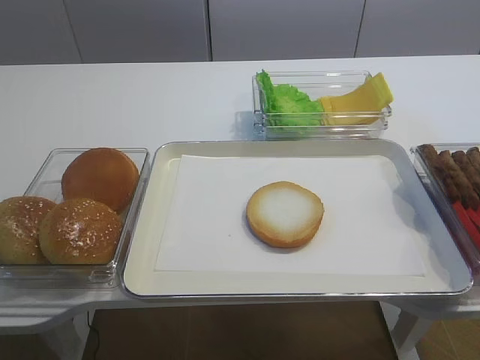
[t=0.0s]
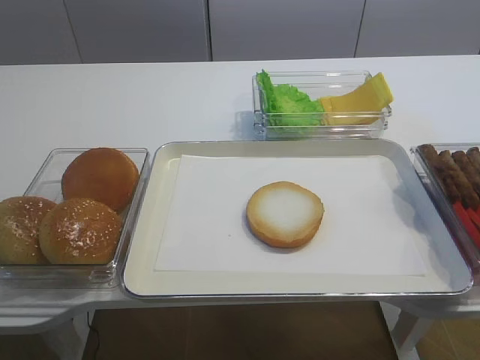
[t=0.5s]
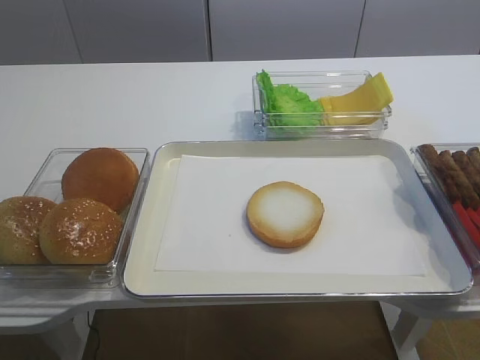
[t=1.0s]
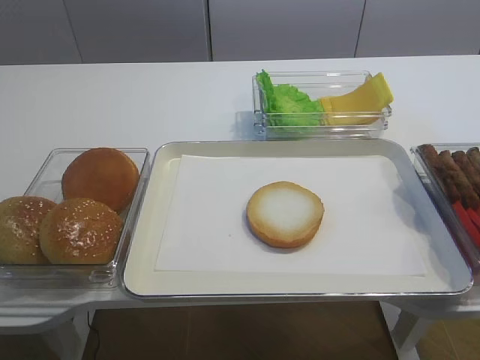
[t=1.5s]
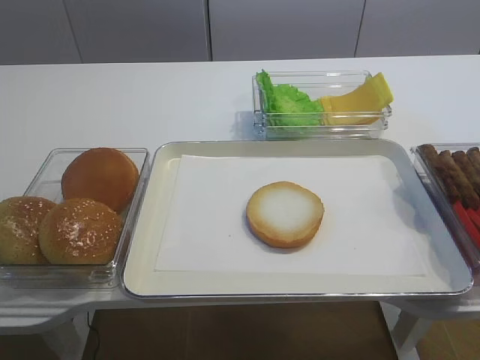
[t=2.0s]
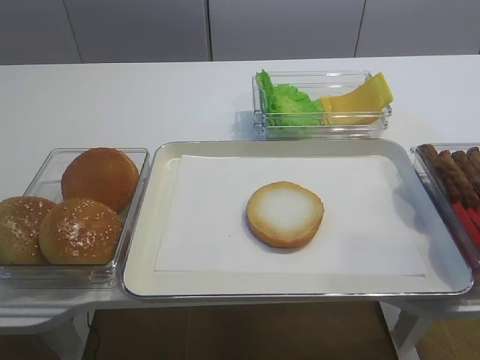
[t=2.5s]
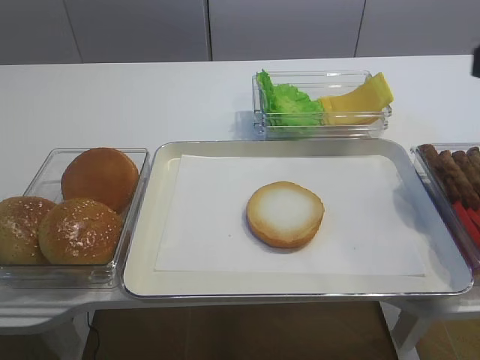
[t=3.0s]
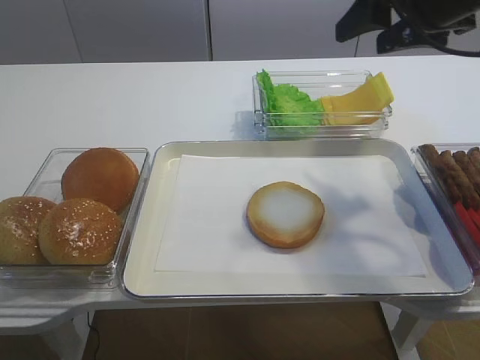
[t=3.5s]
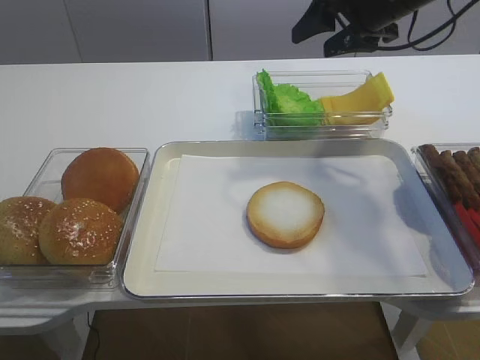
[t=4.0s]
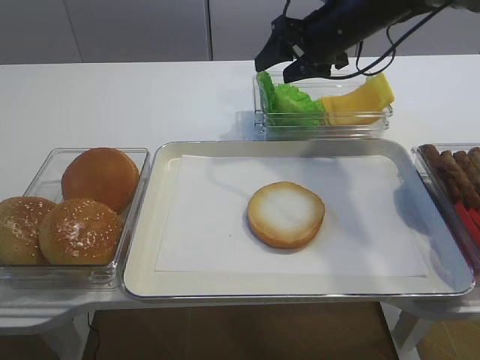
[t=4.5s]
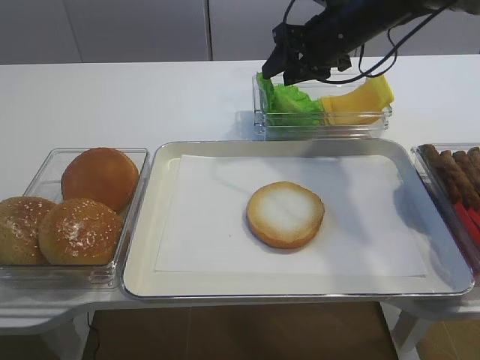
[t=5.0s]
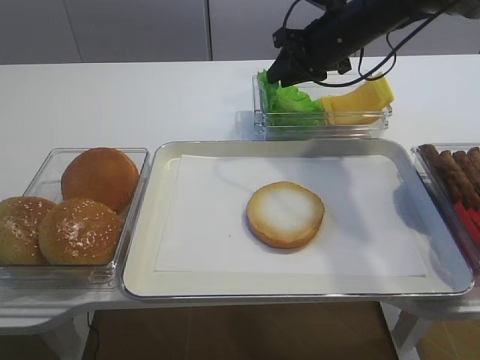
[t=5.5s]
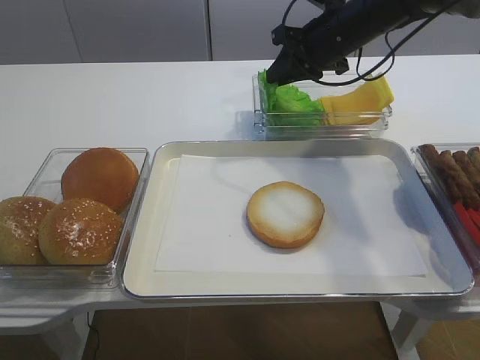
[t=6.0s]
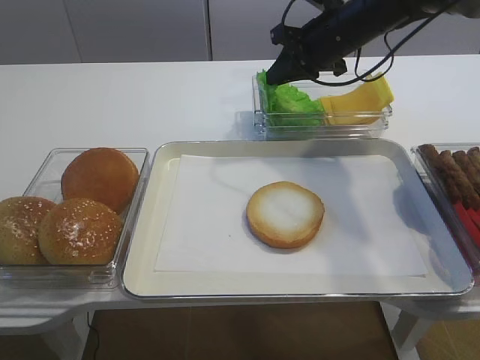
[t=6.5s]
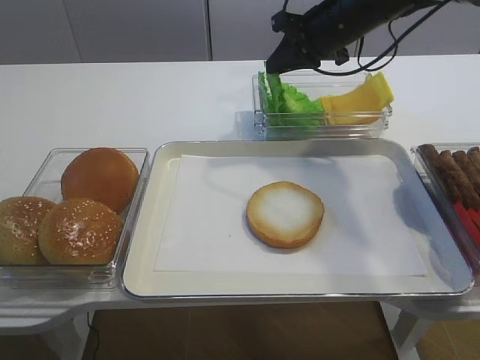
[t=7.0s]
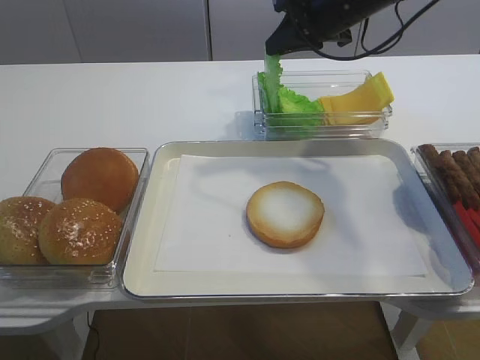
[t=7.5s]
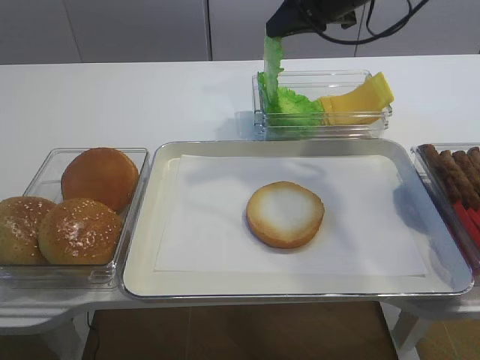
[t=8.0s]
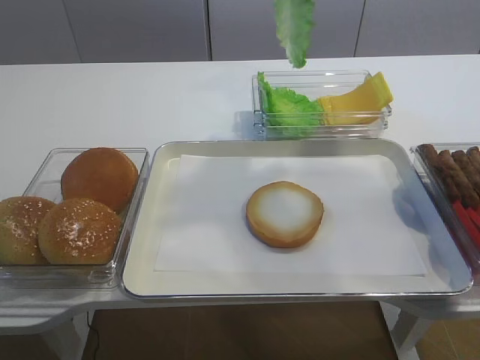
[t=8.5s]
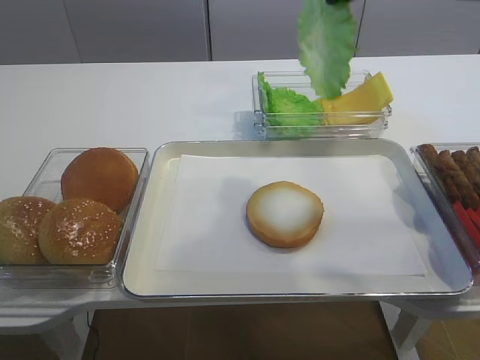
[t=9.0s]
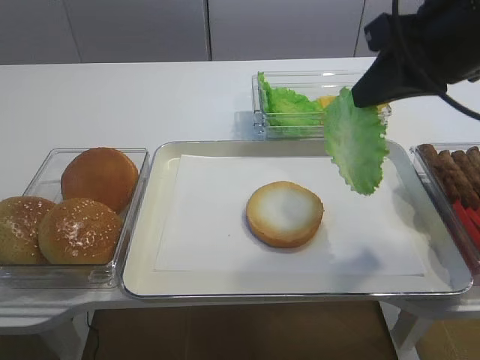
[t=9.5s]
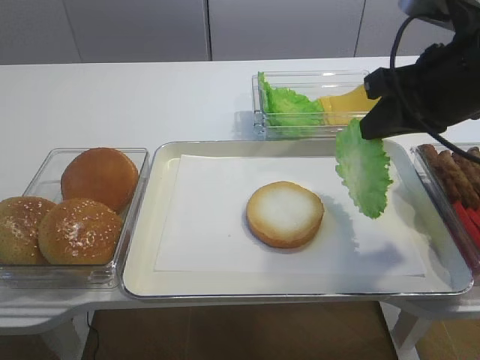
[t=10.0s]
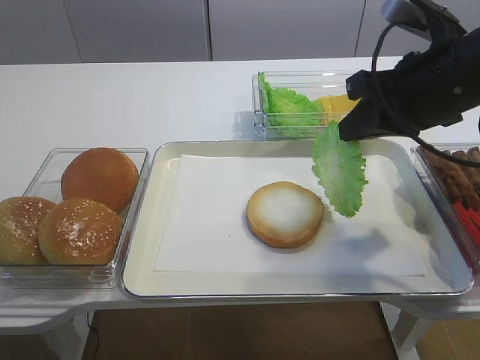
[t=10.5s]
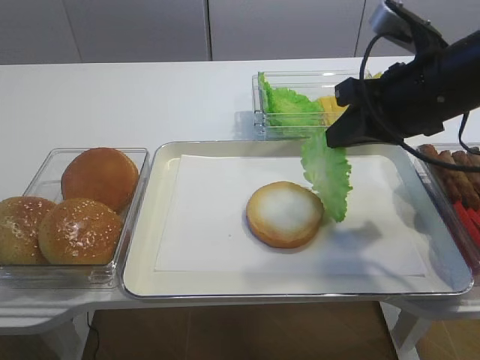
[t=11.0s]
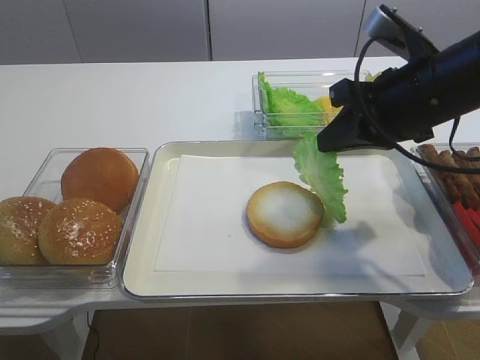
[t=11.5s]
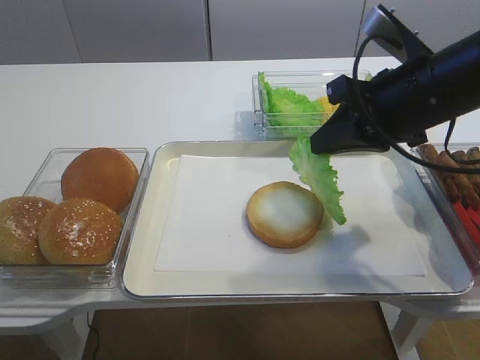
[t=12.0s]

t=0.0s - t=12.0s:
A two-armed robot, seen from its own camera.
Step, t=0.0s - t=8.0s: Pick up the lettuce leaf with the right gripper.
t=2.0s - t=4.0s: The right gripper shifts approximately 40 cm forward.
t=4.0s - t=6.0s: The right gripper is displaced downward by some 5 cm, and closes.
t=6.0s - t=8.0s: The right gripper travels upward by about 5 cm.
t=8.0s - t=10.0s: The right gripper shifts about 20 cm backward.
t=10.0s - t=12.0s: The grippers stay close to where they were, moving slightly.

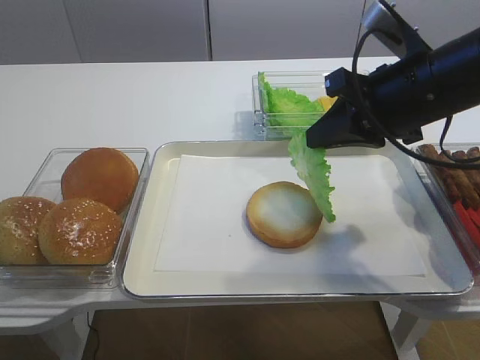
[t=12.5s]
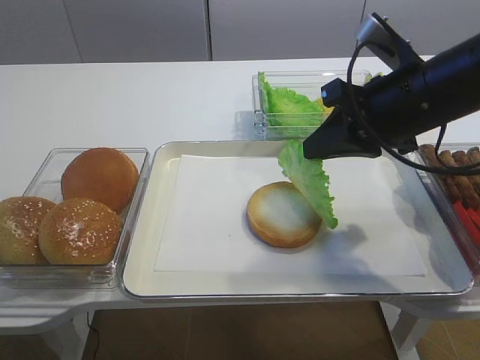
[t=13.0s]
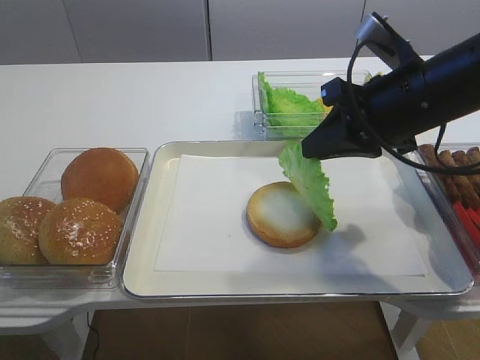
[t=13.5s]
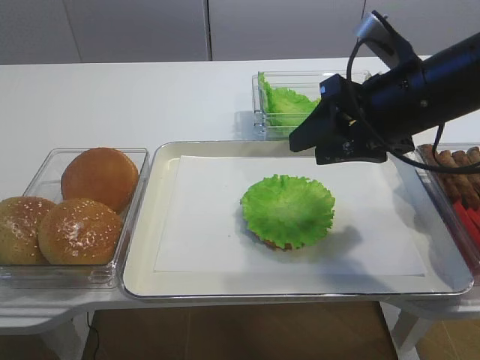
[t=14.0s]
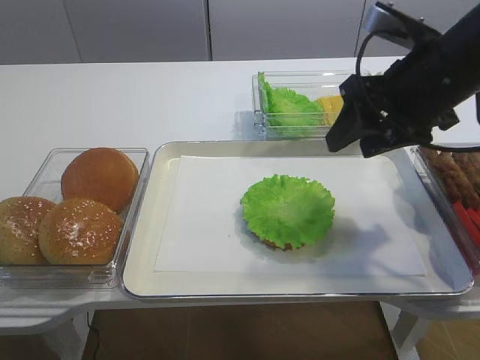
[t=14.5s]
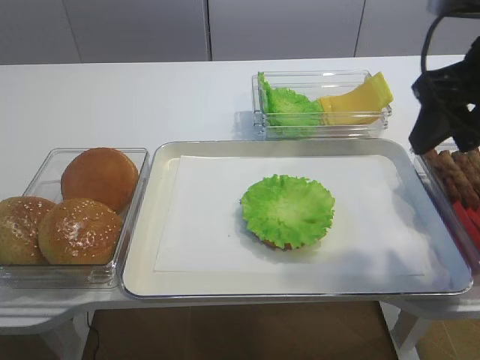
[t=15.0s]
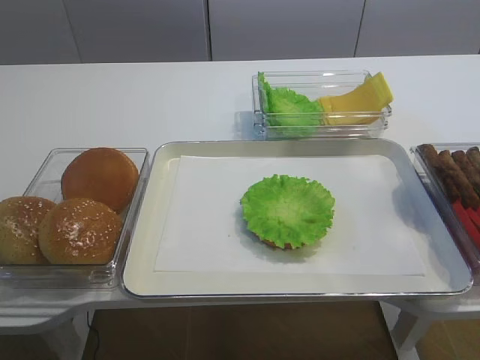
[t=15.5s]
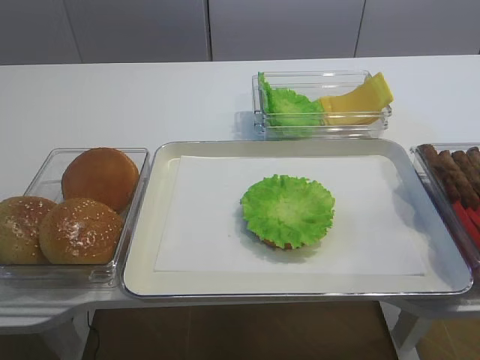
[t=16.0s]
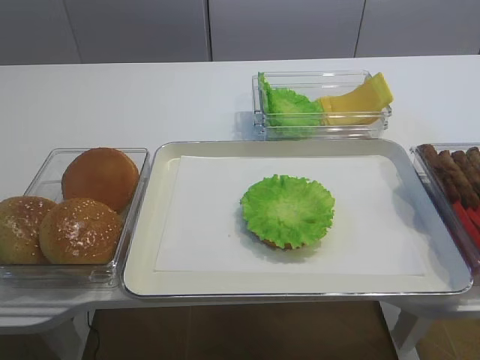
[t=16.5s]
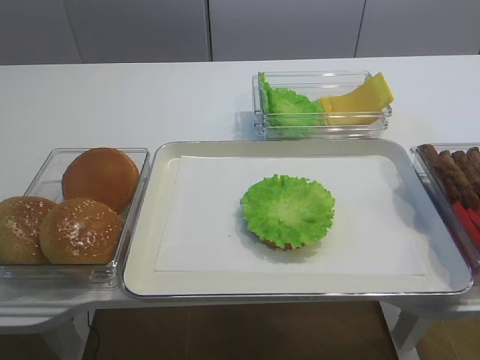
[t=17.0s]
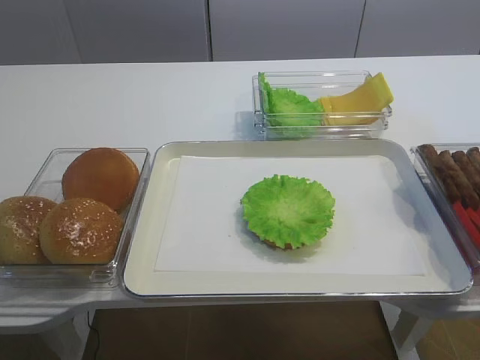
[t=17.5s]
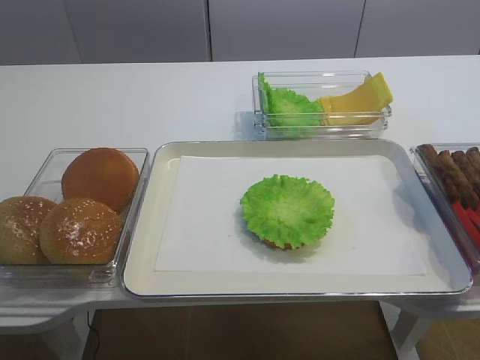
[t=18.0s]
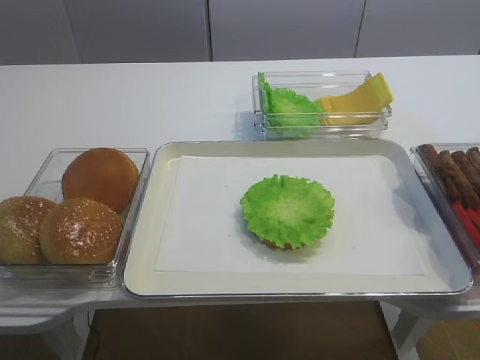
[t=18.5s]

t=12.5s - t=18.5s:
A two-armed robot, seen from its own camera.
t=12.5s - t=14.5s: The right gripper opens its fingers.
t=14.5s - t=16.5s: The right gripper travels backward by approximately 30 cm.

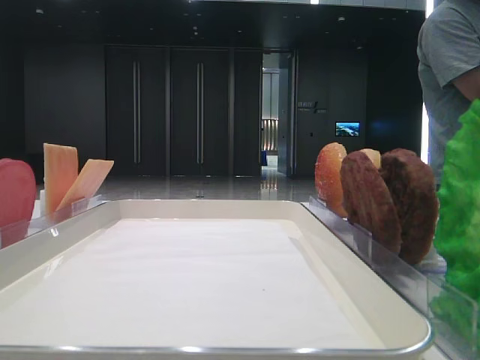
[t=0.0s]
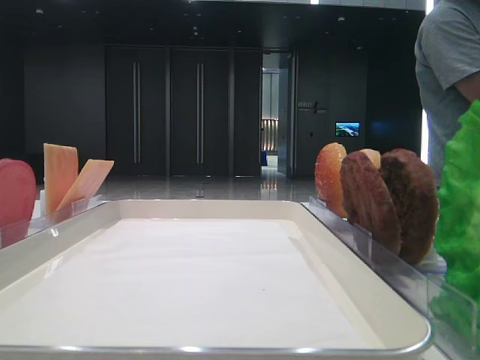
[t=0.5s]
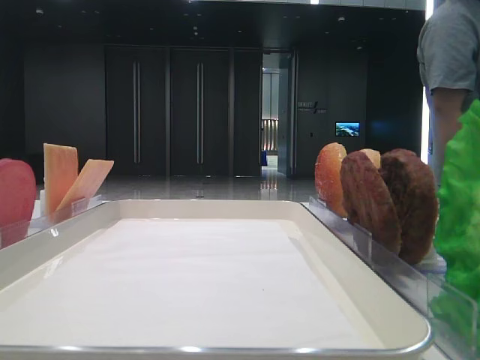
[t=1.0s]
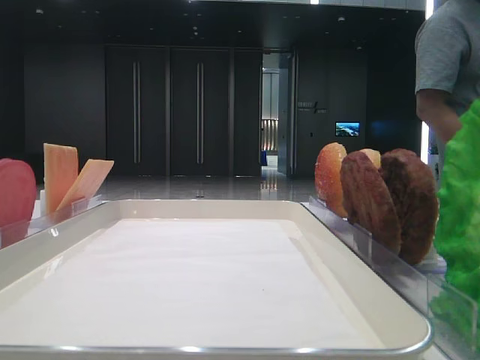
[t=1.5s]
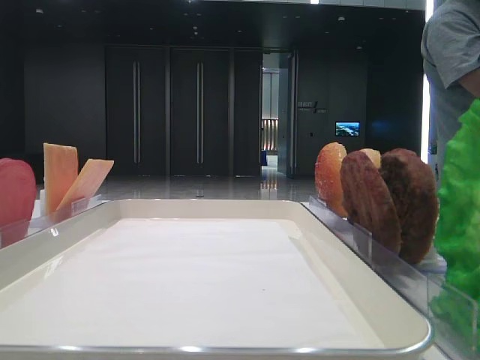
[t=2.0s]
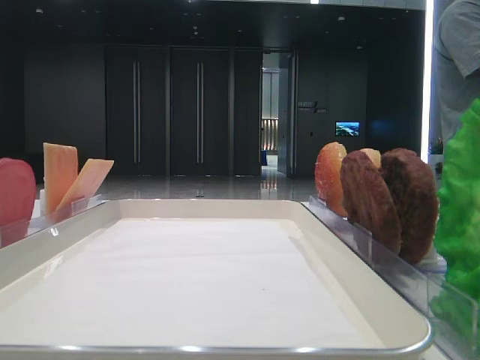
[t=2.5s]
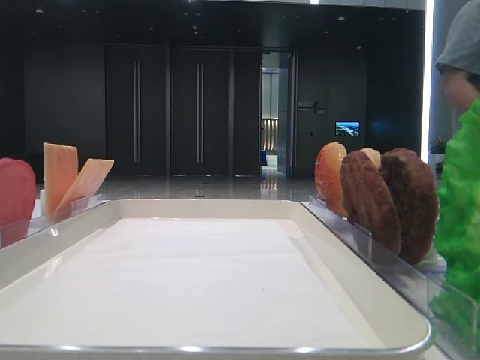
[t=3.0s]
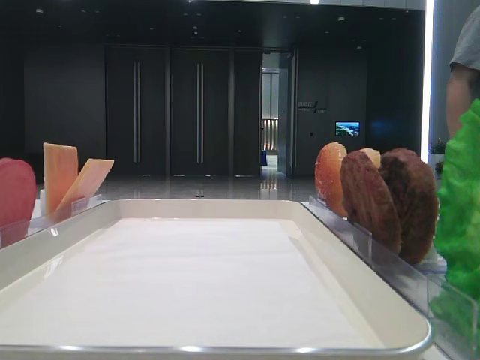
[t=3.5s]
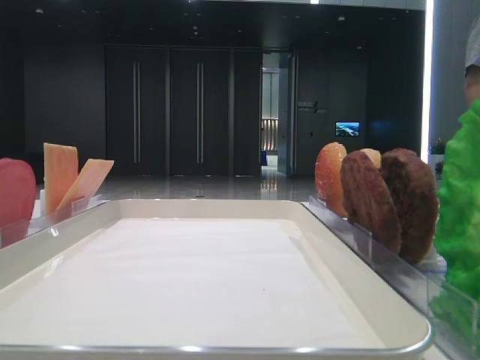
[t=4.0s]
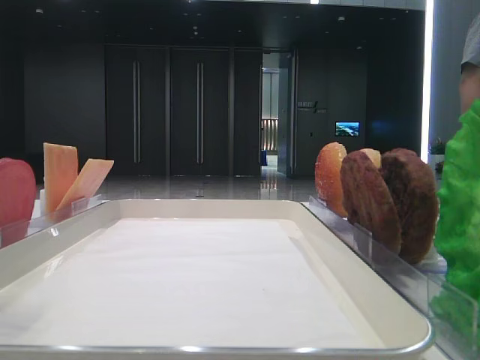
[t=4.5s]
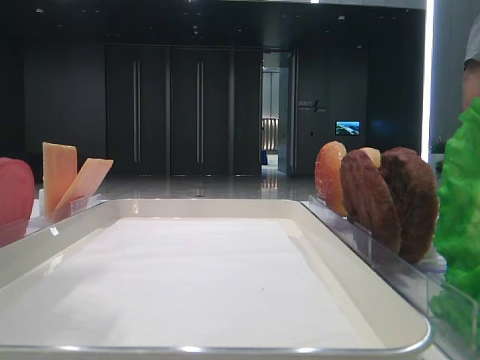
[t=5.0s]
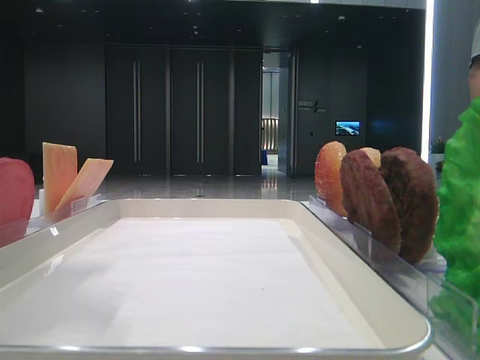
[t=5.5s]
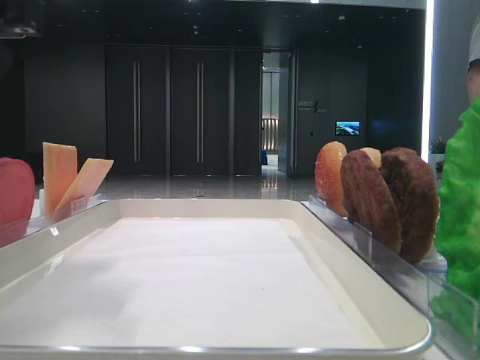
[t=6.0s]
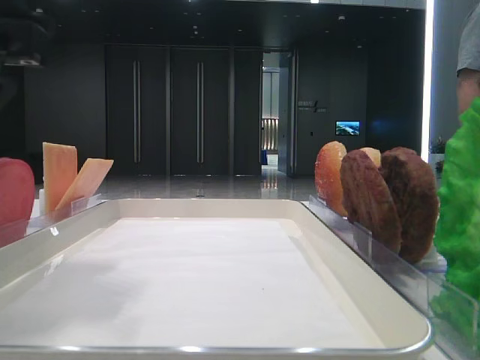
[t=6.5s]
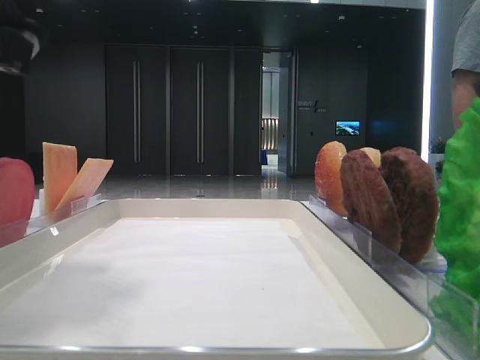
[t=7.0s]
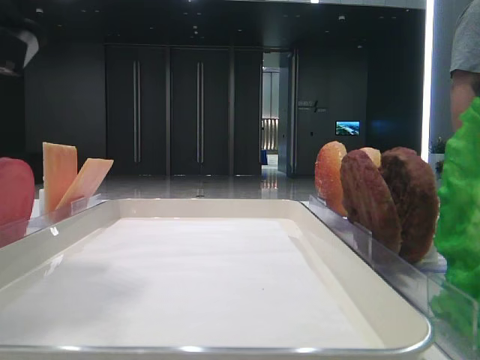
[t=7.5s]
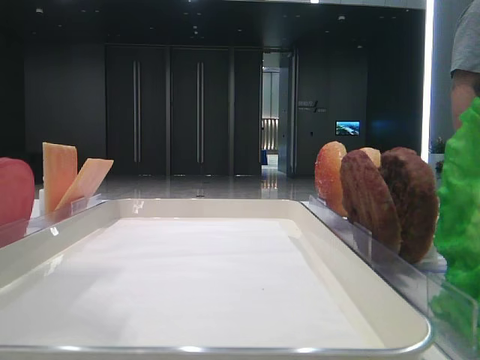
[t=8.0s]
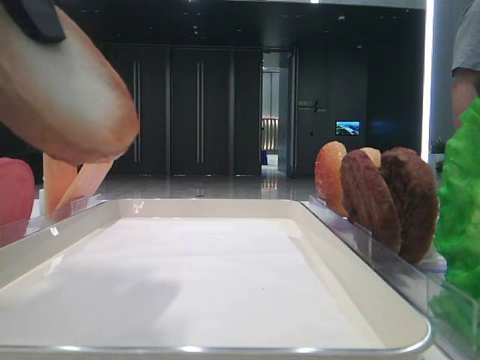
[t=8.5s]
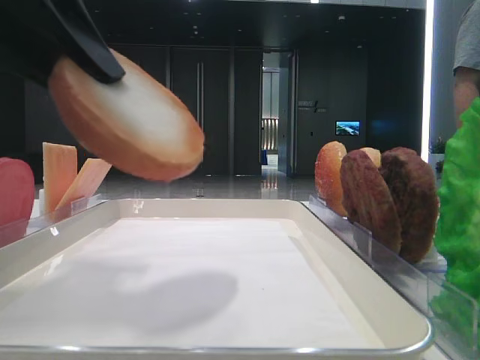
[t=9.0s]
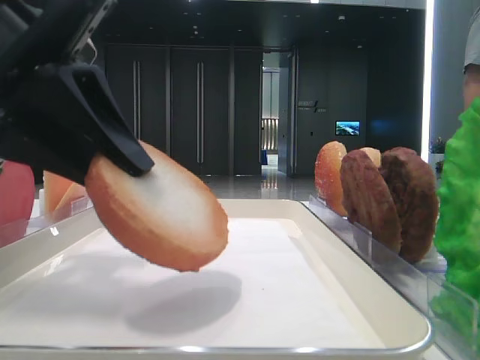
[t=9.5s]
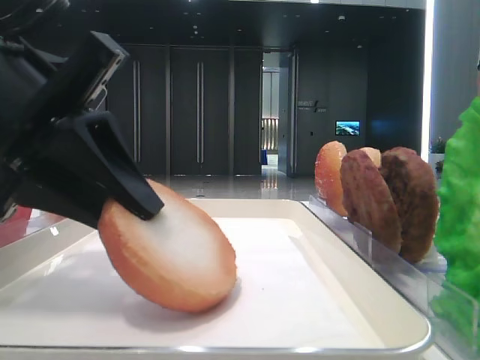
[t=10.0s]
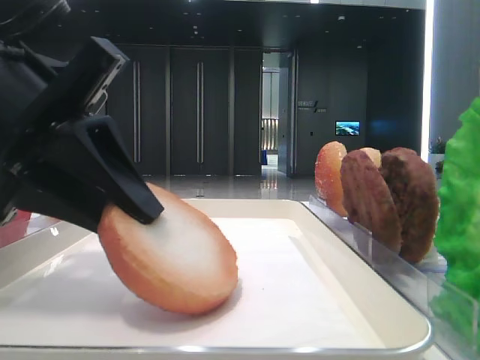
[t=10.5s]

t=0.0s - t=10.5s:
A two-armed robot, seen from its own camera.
Step, t=0.0s - t=7.0s: Pick up the bottom bread with the left hand.
t=4.0s - t=6.5s: The left gripper is displaced to the right and downward by roughly 15 cm.
t=6.5s - t=8.5s: The left gripper shifts roughly 5 cm upward, and closes.
t=8.5s - t=10.5s: The left gripper shifts approximately 10 cm downward.
